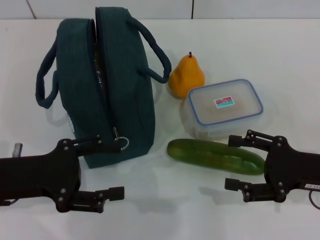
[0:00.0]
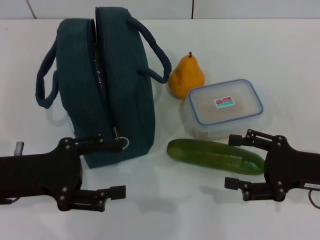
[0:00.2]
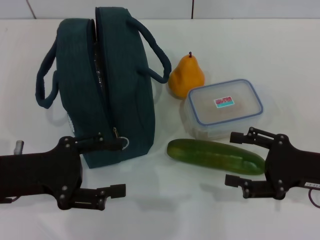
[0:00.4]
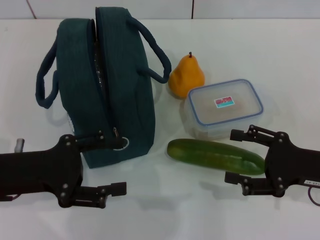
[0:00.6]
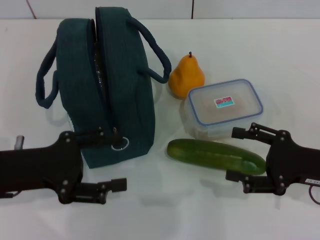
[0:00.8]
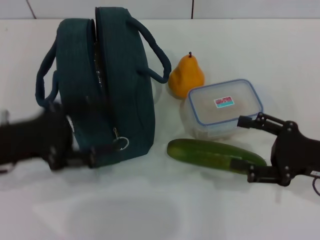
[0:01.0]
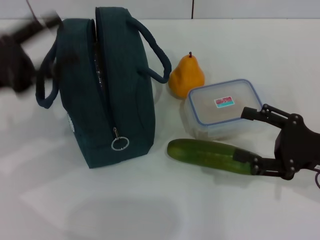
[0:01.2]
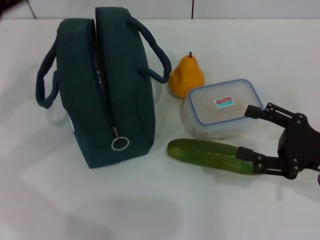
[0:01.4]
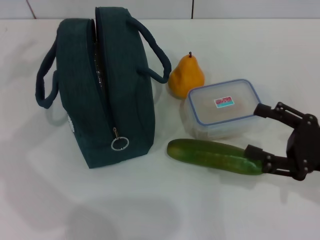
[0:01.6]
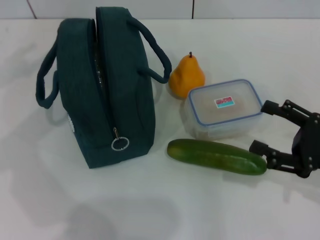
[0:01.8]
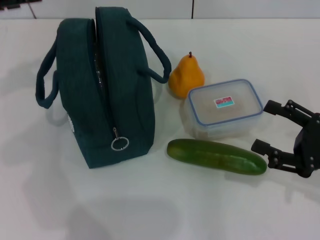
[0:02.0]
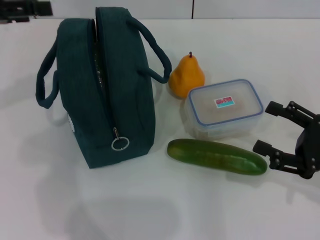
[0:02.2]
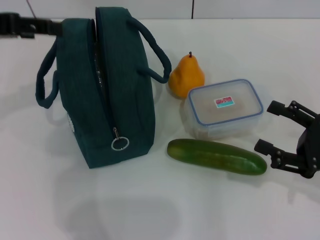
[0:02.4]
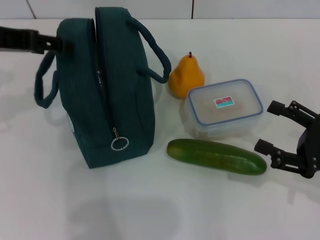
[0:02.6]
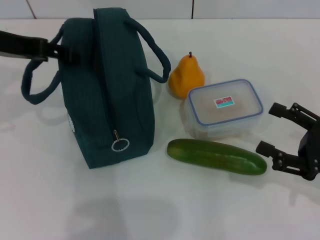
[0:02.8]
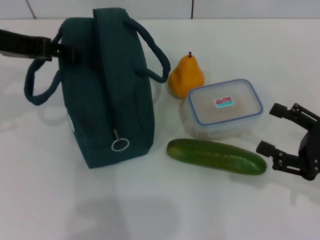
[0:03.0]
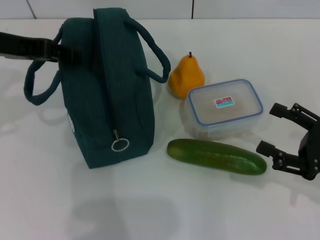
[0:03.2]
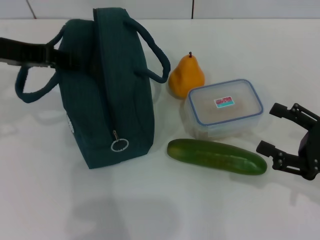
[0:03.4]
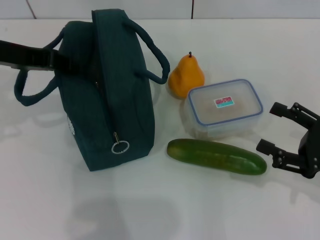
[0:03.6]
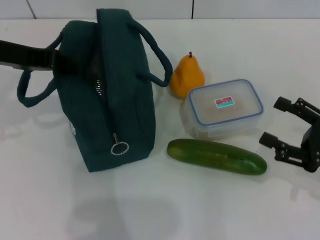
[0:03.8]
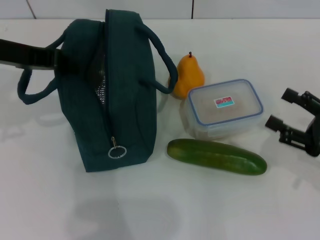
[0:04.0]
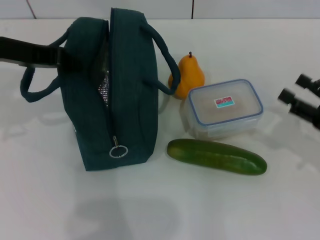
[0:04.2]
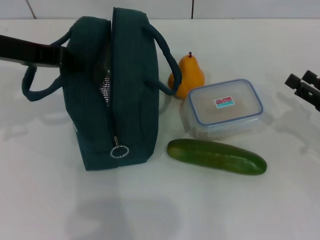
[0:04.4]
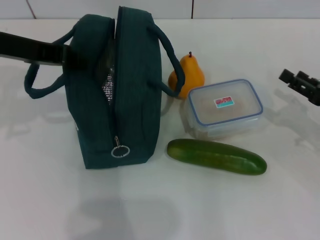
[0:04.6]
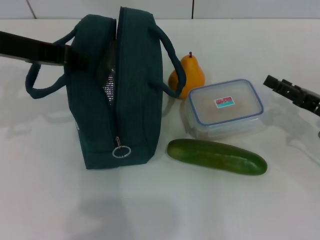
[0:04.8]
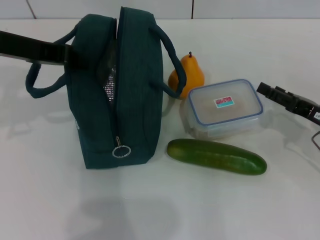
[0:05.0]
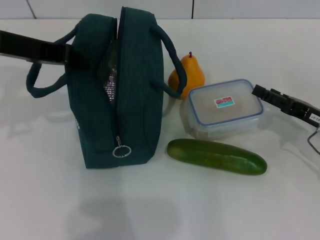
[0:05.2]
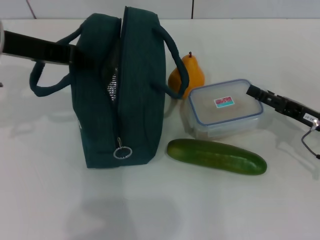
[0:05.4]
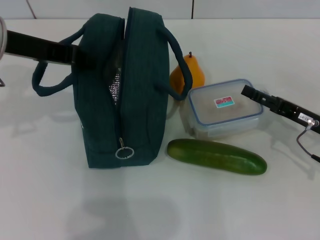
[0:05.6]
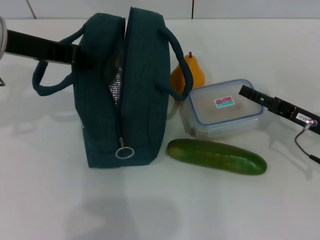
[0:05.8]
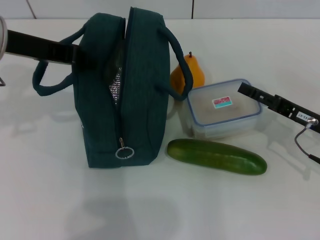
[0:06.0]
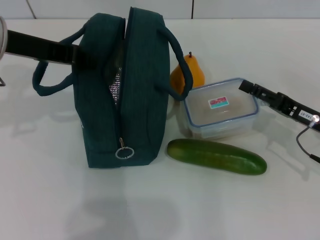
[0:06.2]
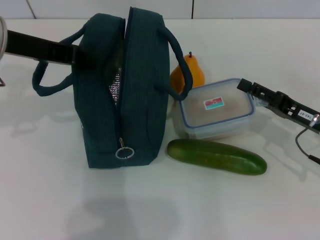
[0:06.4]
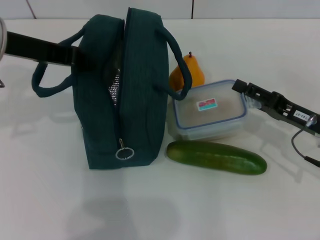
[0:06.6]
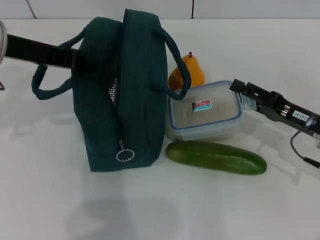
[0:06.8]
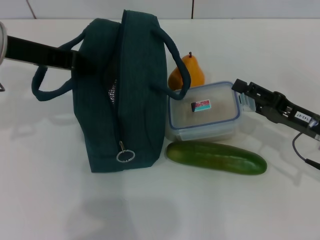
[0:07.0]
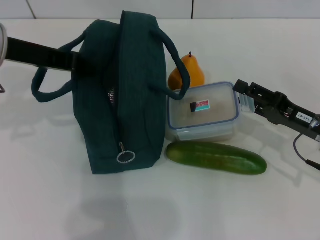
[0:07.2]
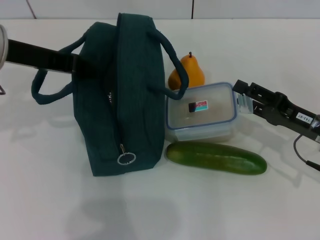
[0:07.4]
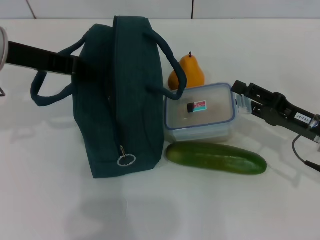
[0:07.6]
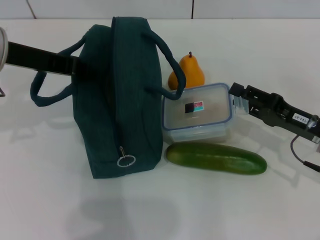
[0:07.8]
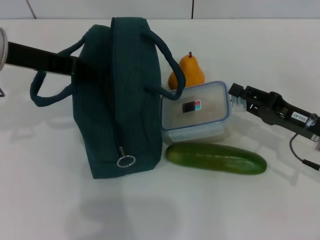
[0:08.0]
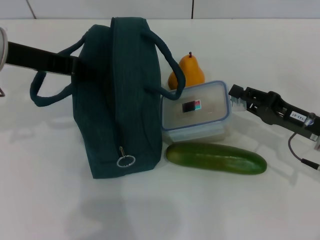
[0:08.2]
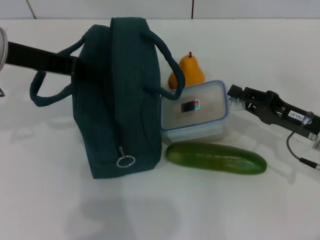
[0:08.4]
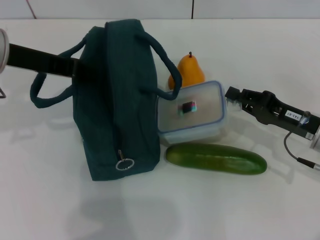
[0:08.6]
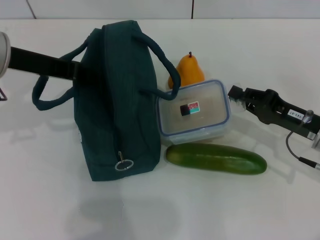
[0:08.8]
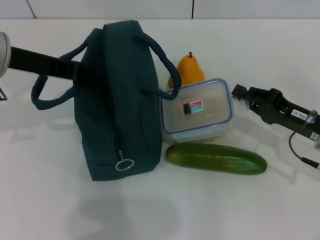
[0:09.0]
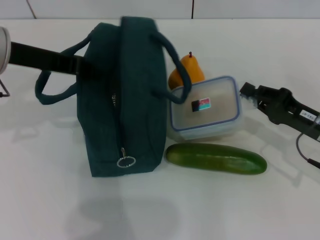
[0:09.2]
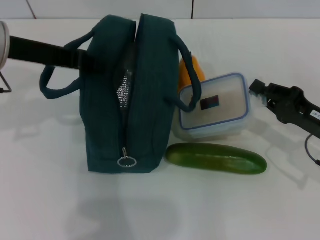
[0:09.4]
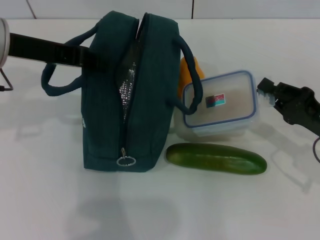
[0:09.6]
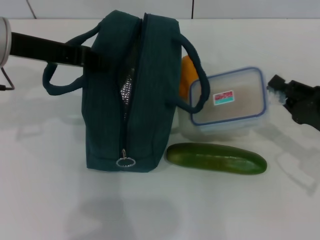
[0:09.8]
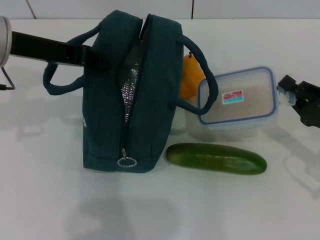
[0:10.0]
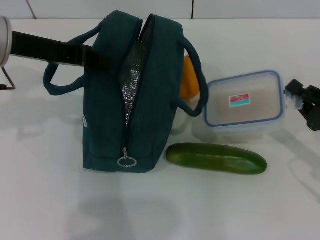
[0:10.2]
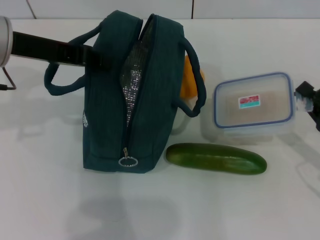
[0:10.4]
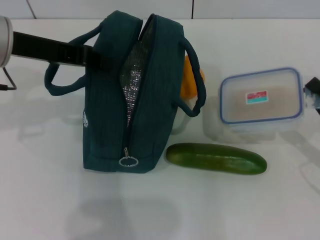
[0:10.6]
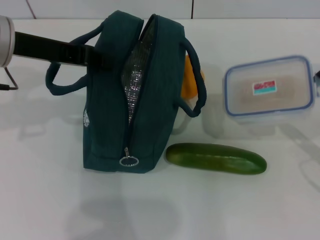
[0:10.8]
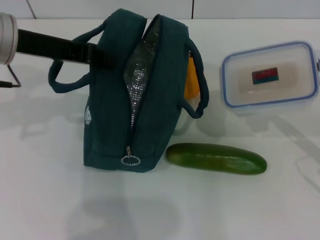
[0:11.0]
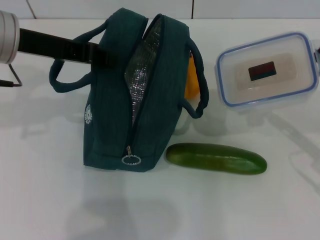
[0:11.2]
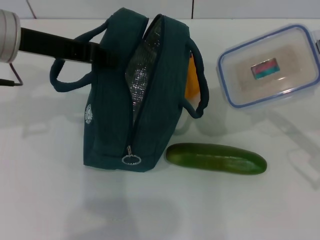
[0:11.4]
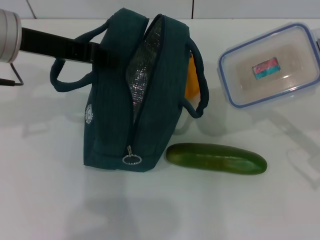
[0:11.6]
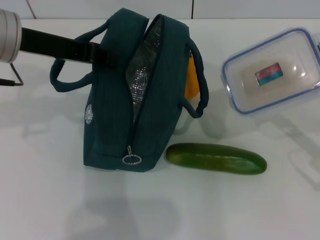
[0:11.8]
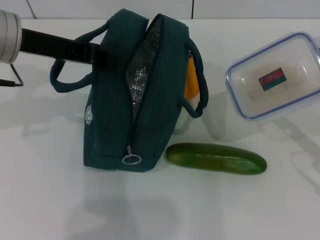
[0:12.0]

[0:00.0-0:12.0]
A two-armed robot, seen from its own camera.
Step, 0:00.0 to 0:04.0: Hold the lunch bag with your left hand.
Step, 0:04.2 to 0:08.6: Pick up the lunch box with your right hand.
0:00.0 to 0:01.6: The left gripper heads forward, upward and to the left, covering approximately 15 cm.
0:01.6 to 0:03.0: The left gripper shifts roughly 10 cm to the right.
0:03.0 to 0:04.4: The left gripper closes. Meanwhile the right gripper ends up approximately 5 cm from where it was.
0:04.4 to 0:06.0: The right gripper travels to the left by roughly 5 cm.
0:06.0 to 0:07.6: There are only small adjustments of the grippers.
0:07.6 to 0:09.0: The right gripper closes up.
0:09.0 to 0:10.4: The right gripper goes some 10 cm to the right and backward.
0:10.4 to 0:12.0: The grippers stay close to where they were, moving slightly.

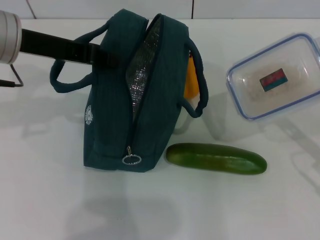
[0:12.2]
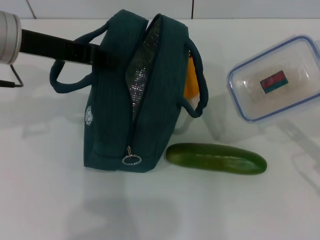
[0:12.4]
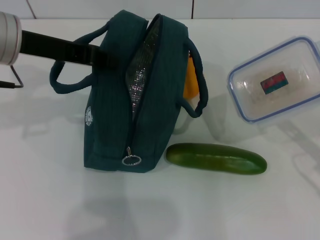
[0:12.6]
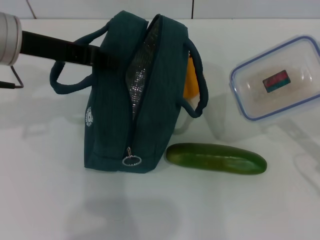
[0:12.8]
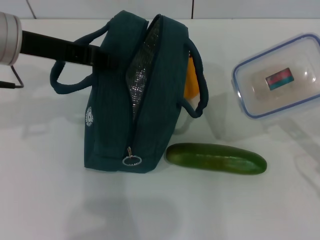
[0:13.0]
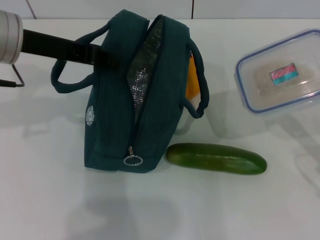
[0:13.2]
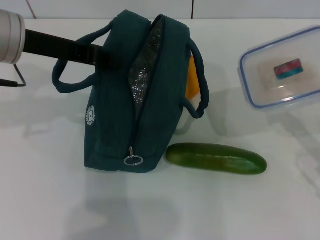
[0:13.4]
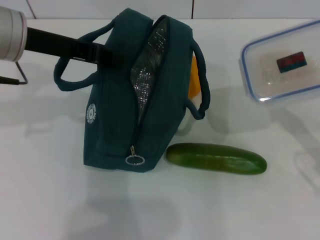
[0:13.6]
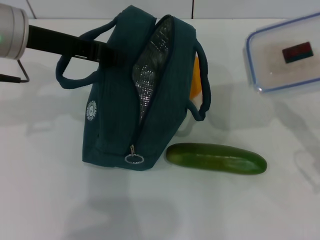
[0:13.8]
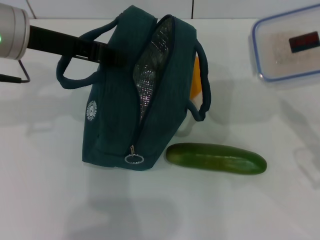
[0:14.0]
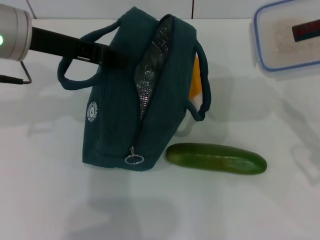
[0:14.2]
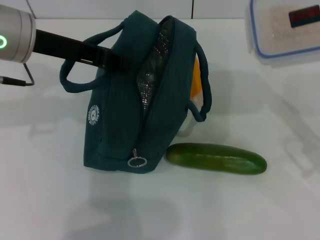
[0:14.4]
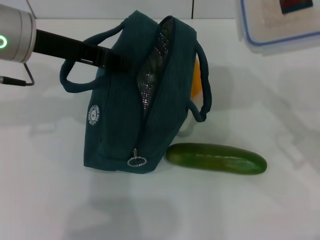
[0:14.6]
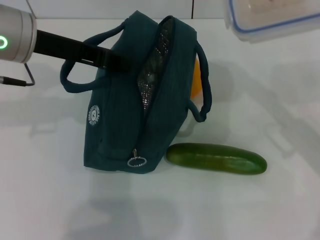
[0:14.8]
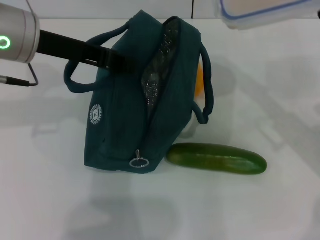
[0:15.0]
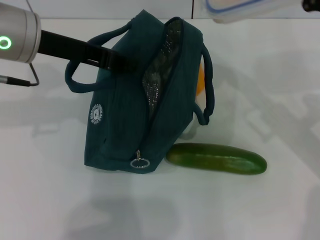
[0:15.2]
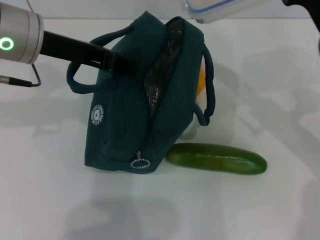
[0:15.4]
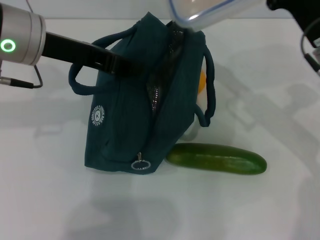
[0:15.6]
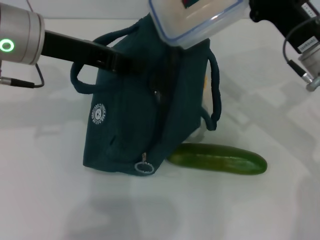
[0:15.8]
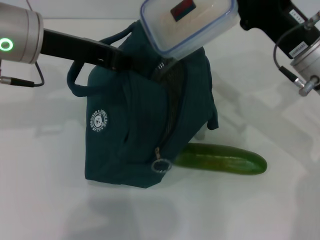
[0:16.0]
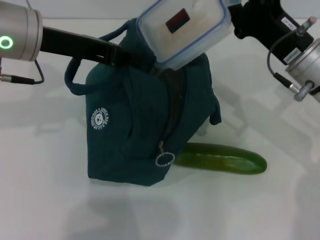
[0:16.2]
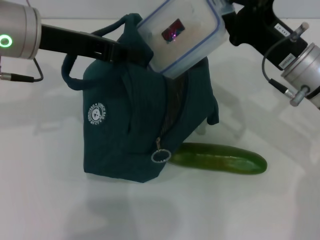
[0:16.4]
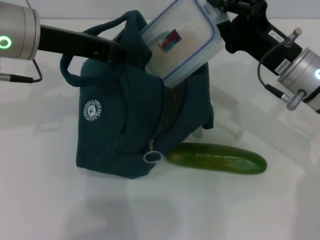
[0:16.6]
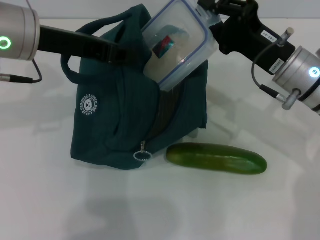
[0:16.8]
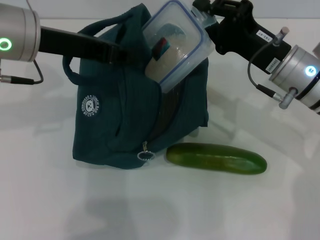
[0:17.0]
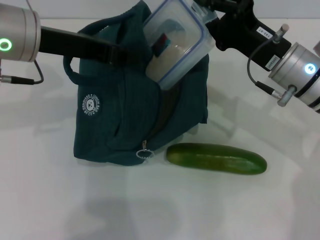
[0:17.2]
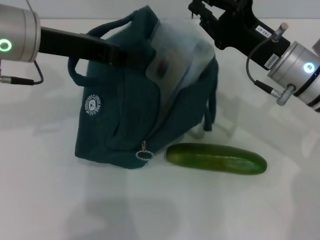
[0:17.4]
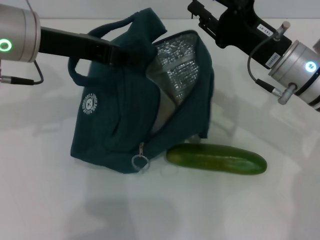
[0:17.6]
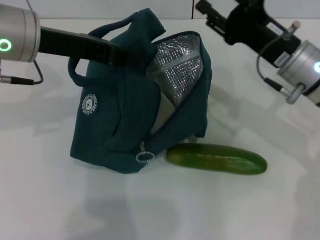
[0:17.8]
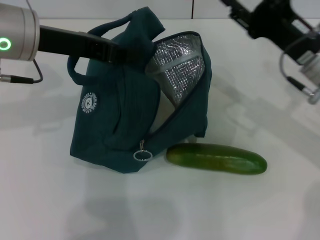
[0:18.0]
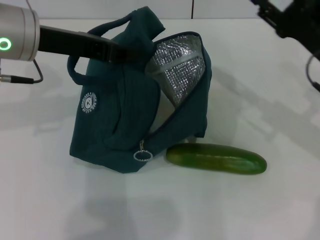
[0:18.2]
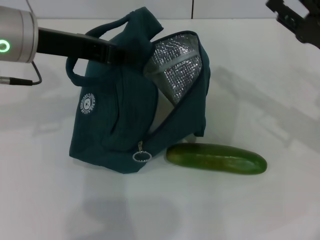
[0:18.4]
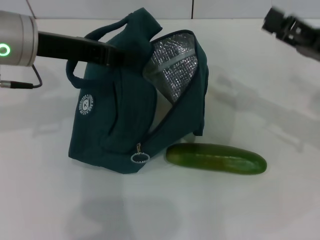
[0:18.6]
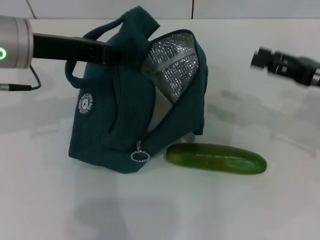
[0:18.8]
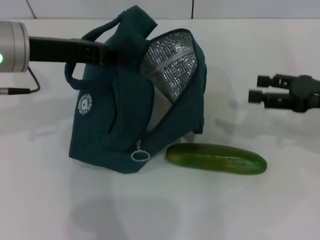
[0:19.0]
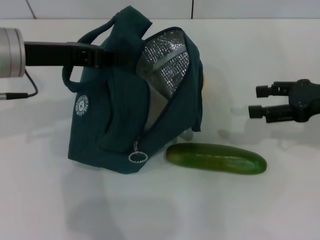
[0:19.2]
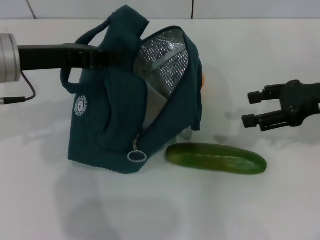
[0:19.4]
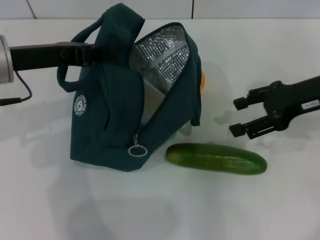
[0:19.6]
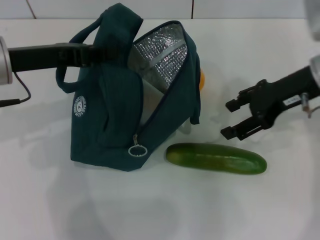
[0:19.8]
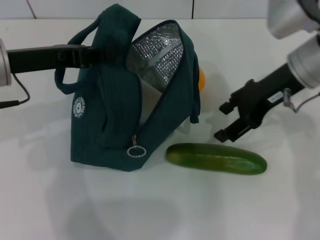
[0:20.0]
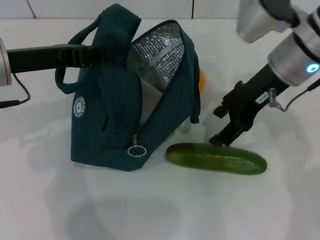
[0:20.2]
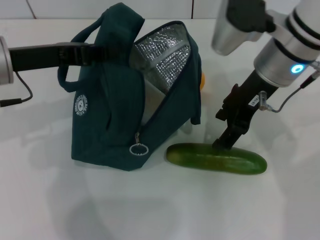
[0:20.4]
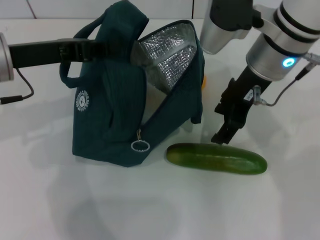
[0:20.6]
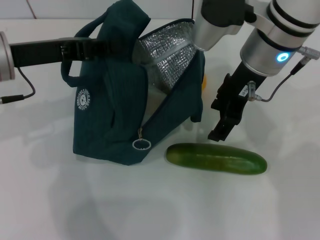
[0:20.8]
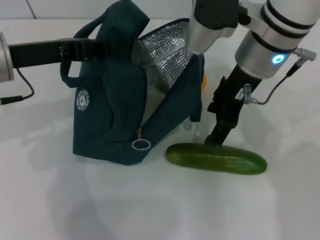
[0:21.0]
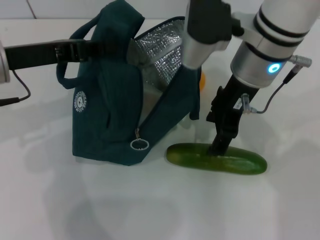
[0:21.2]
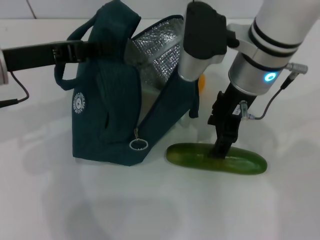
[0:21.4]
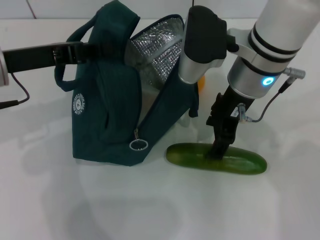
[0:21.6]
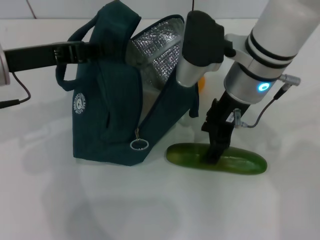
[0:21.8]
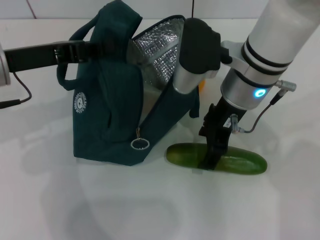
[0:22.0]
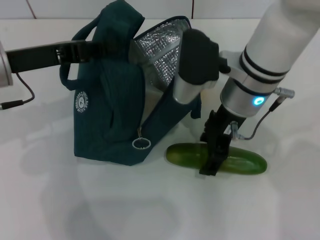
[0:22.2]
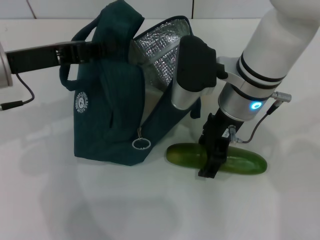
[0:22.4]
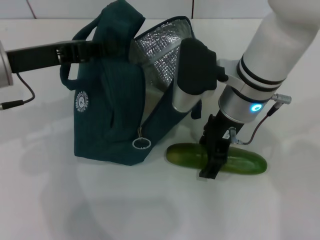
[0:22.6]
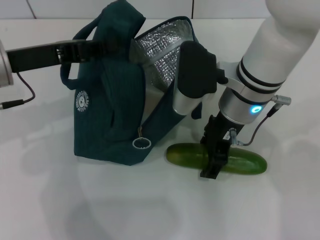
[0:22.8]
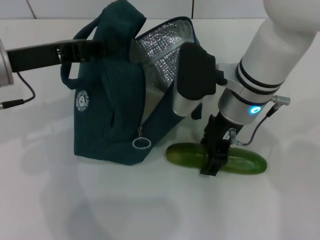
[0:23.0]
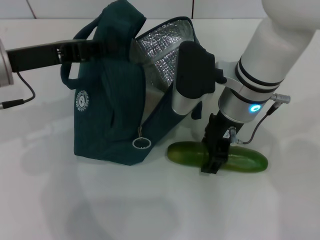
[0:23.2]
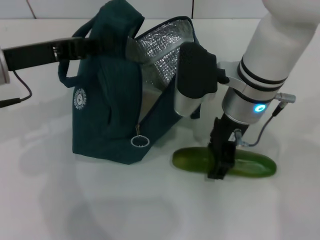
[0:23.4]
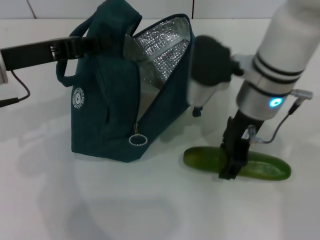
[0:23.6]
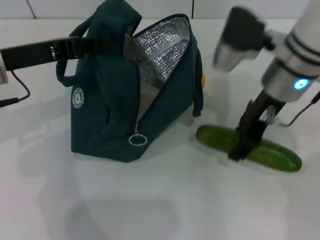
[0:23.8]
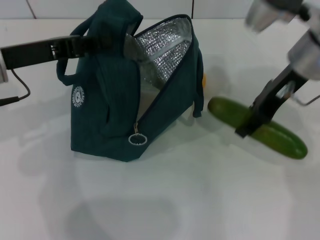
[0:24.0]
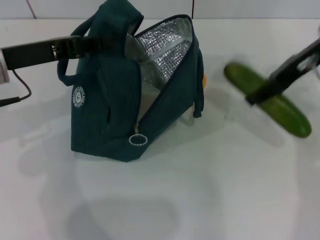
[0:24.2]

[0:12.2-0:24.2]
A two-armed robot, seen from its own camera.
Step, 0:12.2 to 0:18.2: Place the lunch box into the lunch bag with your right hand.
Step, 0:18.4 to 0:23.0: Pick up the cucumber with your right hand.
0:12.2 to 0:13.8: The grippers move only a little.
0:13.8 to 0:15.2: The right gripper moves forward, to the left and upward, some 10 cm.
0:15.2 to 0:16.6: The right gripper travels to the left by some 5 cm.
0:16.6 to 0:18.2: The right gripper is displaced to the right by about 5 cm, and opens.
0:18.2 to 0:19.8: The left gripper moves about 5 cm. Meanwhile the right gripper moves upward, about 5 cm, and goes to the right and returns, approximately 5 cm each way.
0:19.8 to 0:21.2: The right gripper shifts roughly 15 cm to the left.
0:21.2 to 0:22.6: The right gripper travels downward by some 5 cm.
0:22.6 to 0:24.2: The right gripper travels to the right and upward by approximately 15 cm.
